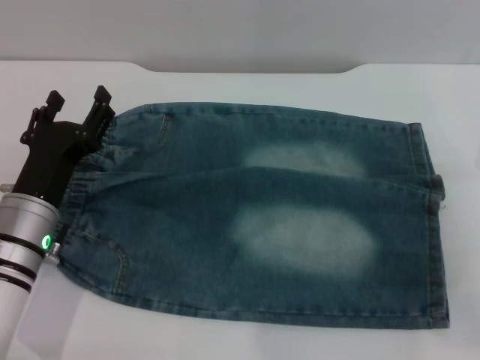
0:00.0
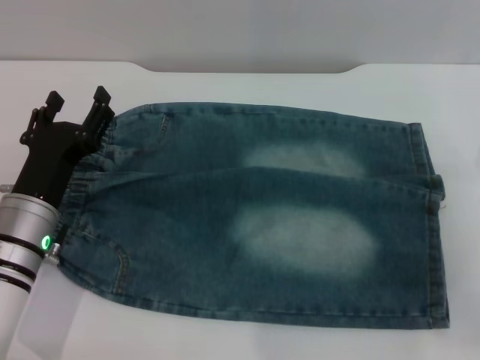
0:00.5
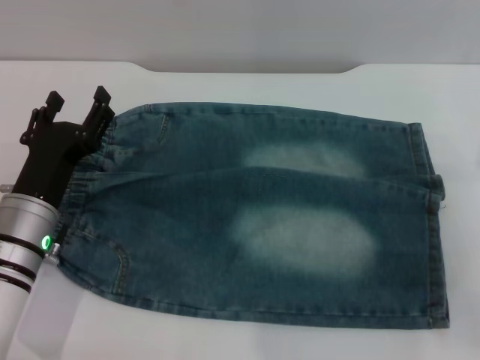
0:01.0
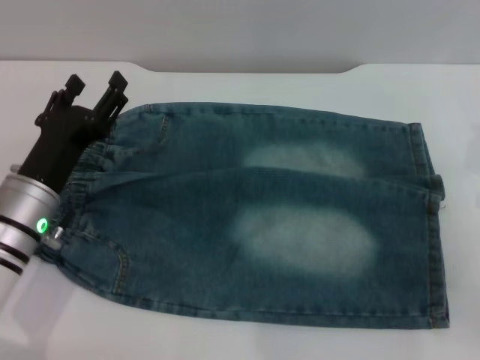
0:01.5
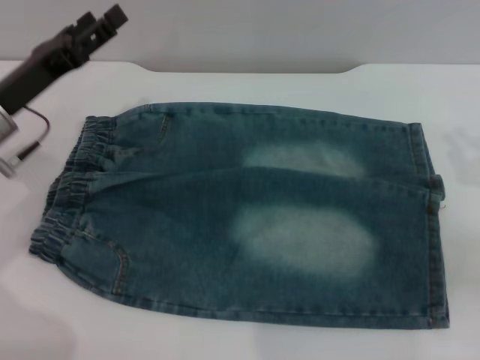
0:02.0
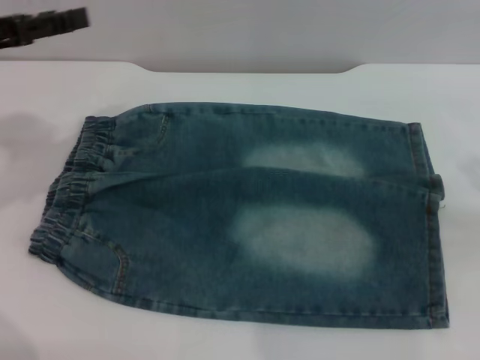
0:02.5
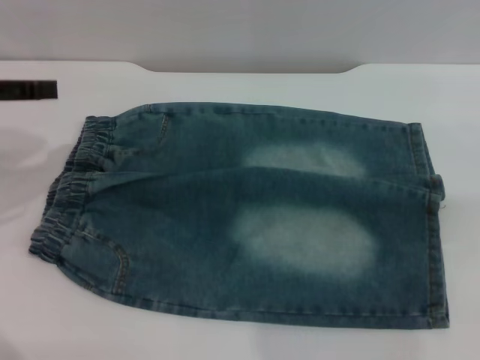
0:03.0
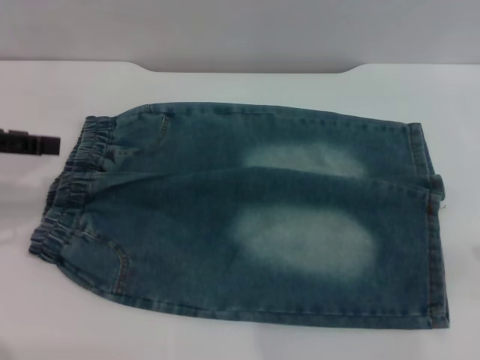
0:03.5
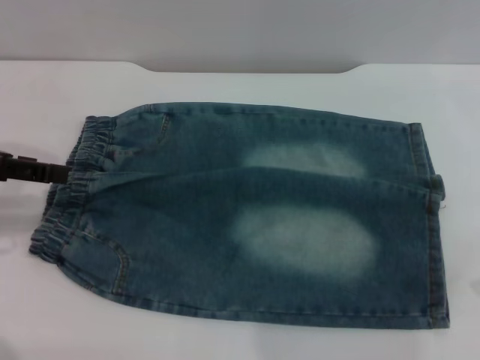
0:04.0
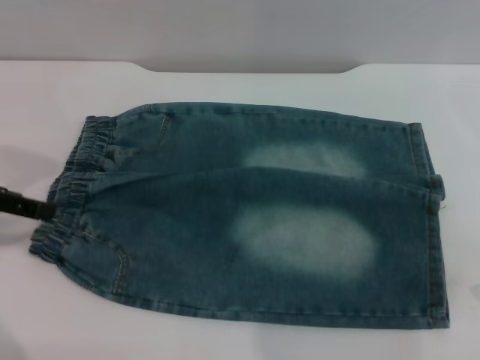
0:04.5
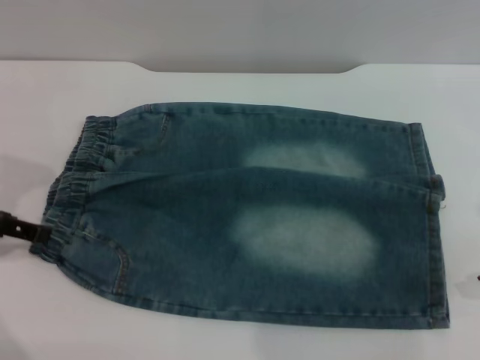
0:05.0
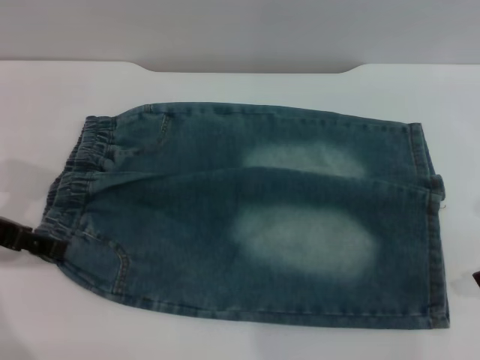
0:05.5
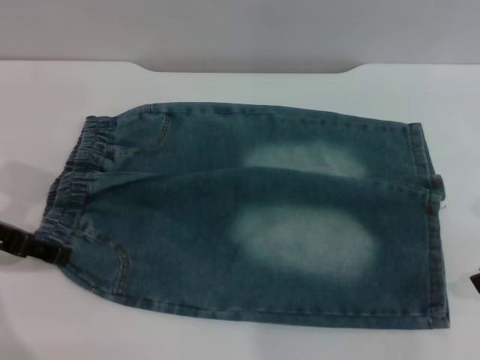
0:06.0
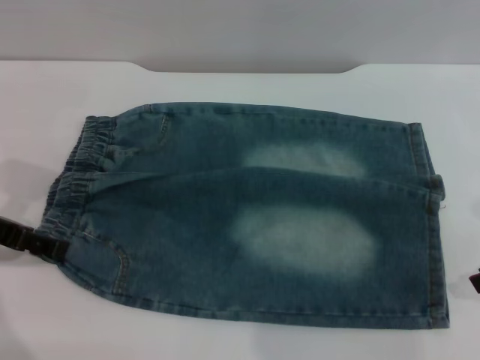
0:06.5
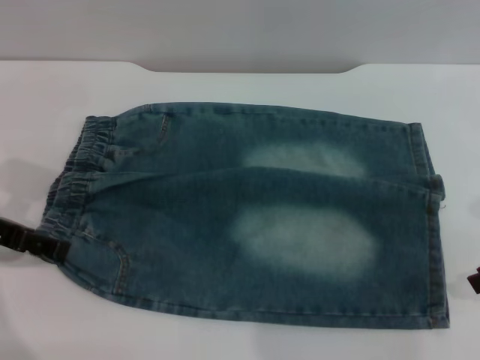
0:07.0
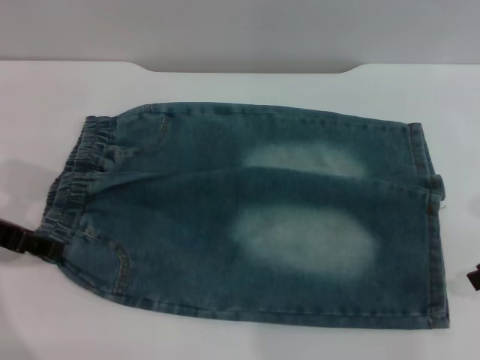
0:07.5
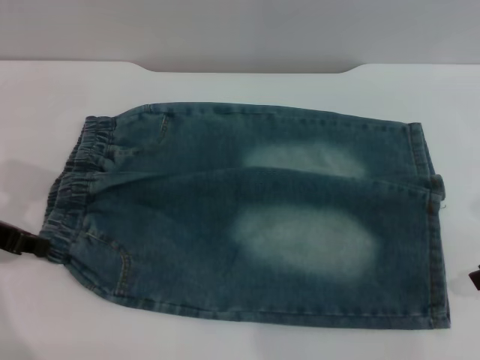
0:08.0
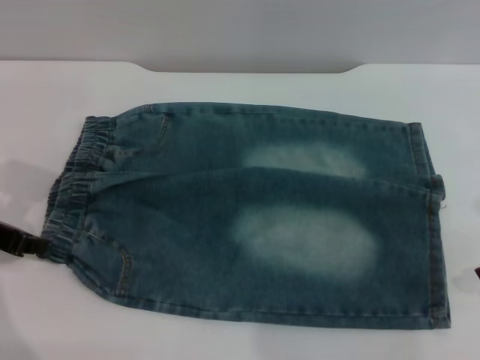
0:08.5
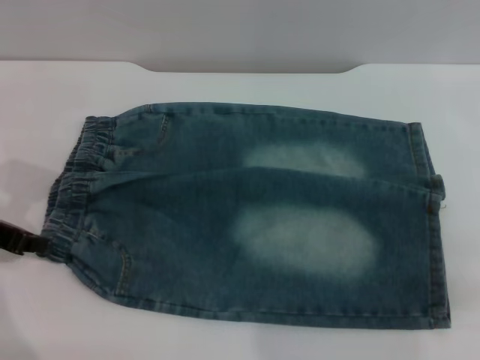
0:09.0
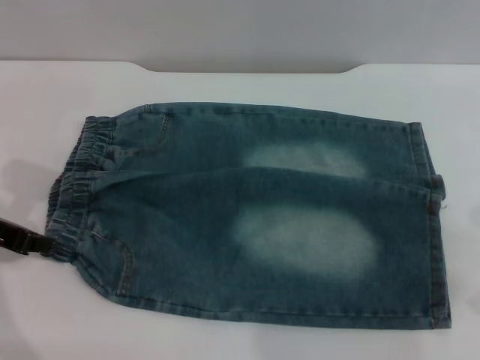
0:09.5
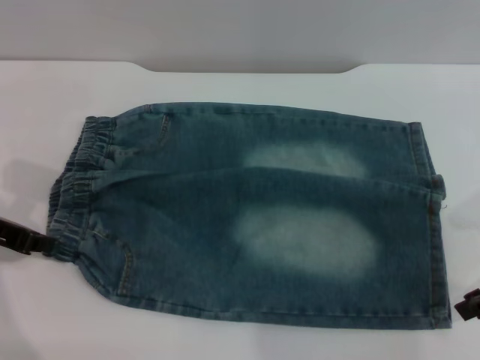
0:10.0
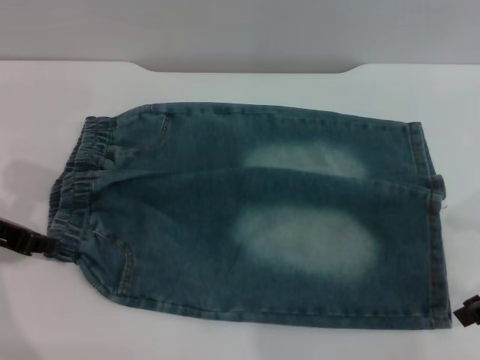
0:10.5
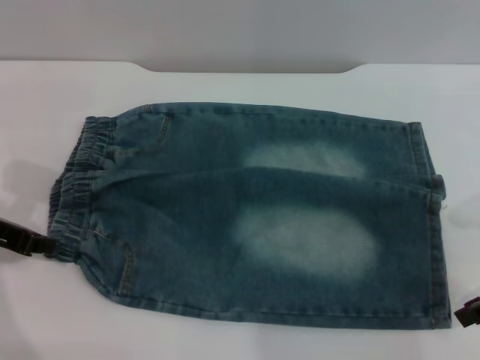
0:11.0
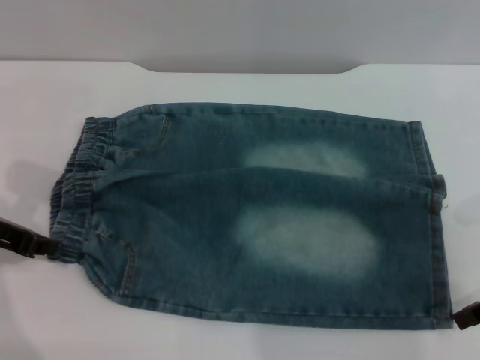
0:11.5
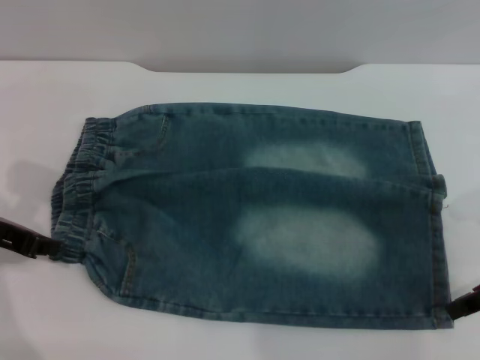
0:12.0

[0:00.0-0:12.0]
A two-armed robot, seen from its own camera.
0:00.0 to 0:02.0: The left gripper shifts roughly 10 cm forward and upward.
0:02.0 to 0:04.0: The left gripper travels upward and to the left by about 15 cm.
0:04.0 to 0:06.0: The left gripper travels downward by about 5 cm.
0:06.0 to 0:08.0: The left gripper closes its fingers.
0:08.0 to 0:10.0: The left gripper closes its fingers.
0:10.0 to 0:12.0: The grippers make only small movements.

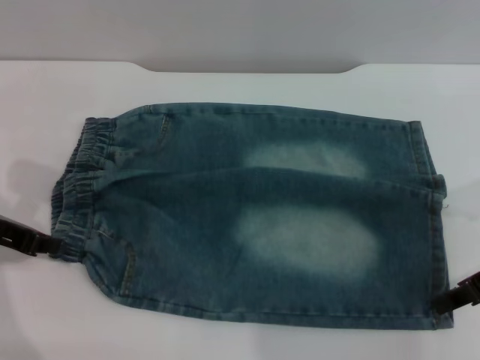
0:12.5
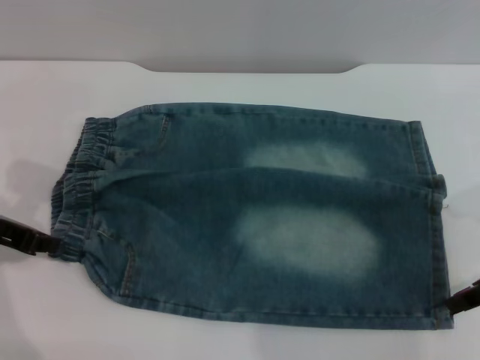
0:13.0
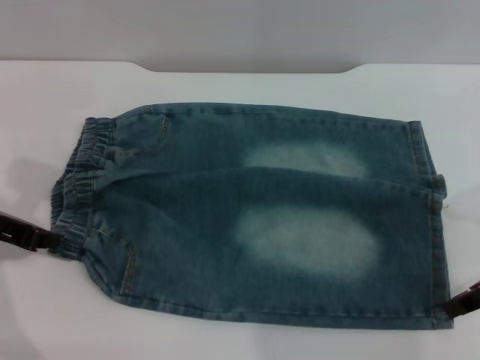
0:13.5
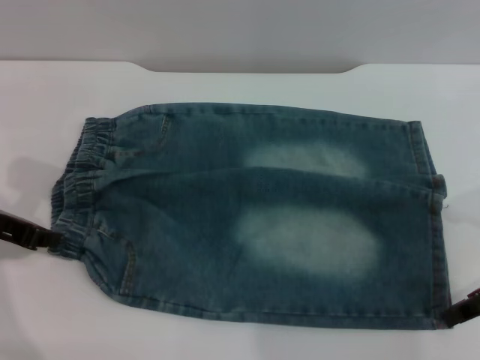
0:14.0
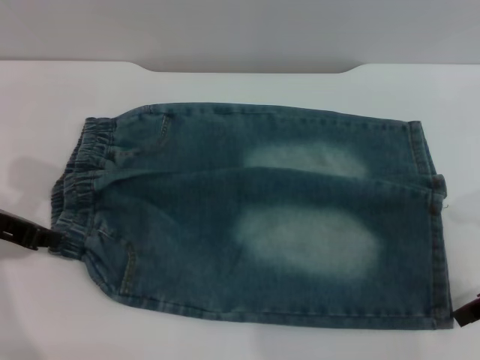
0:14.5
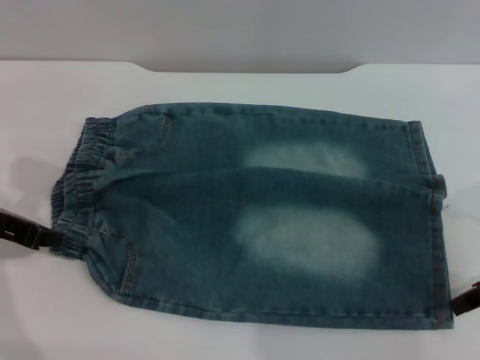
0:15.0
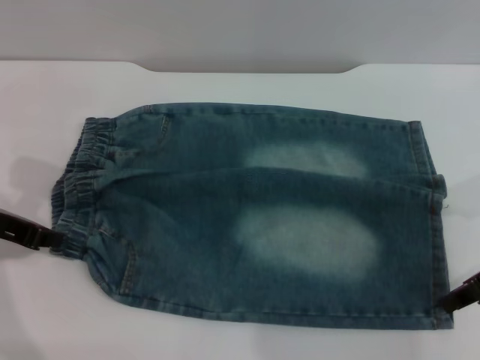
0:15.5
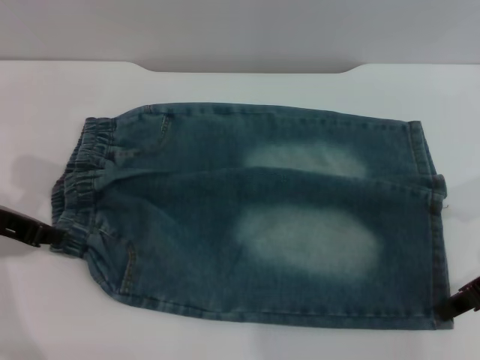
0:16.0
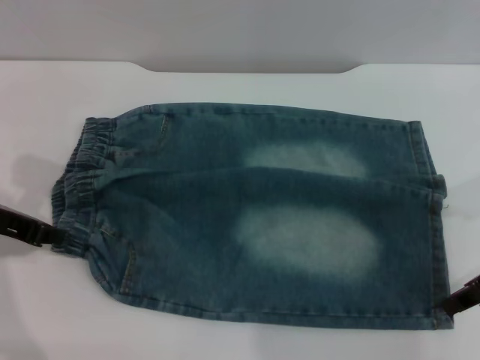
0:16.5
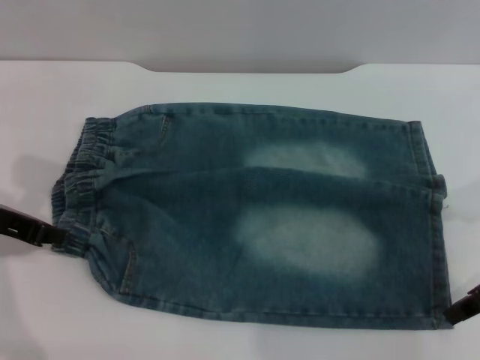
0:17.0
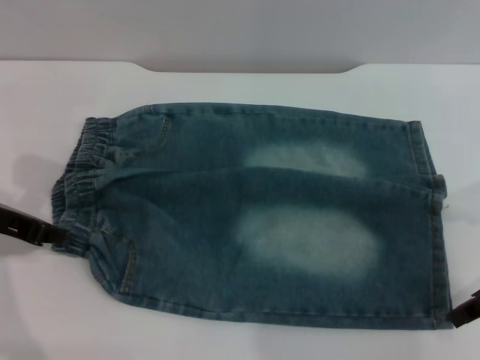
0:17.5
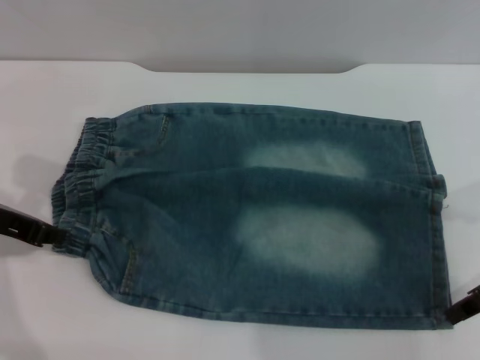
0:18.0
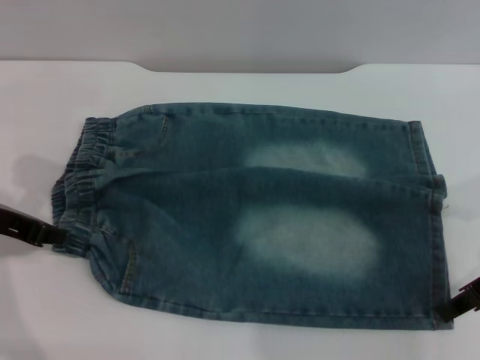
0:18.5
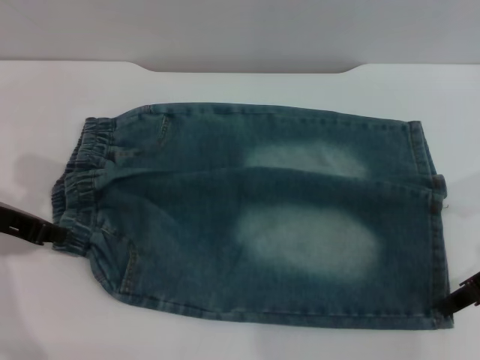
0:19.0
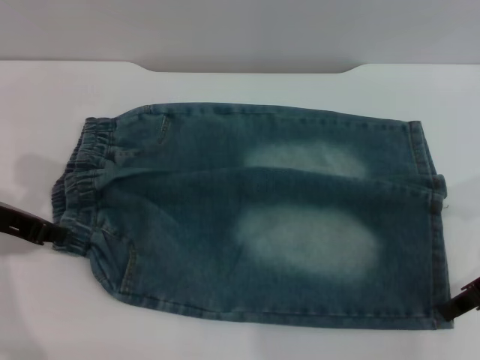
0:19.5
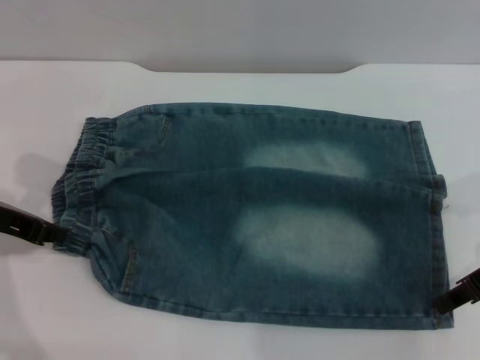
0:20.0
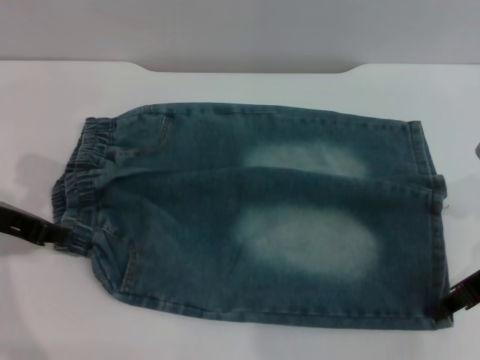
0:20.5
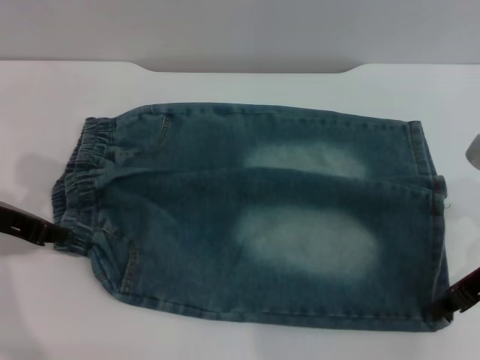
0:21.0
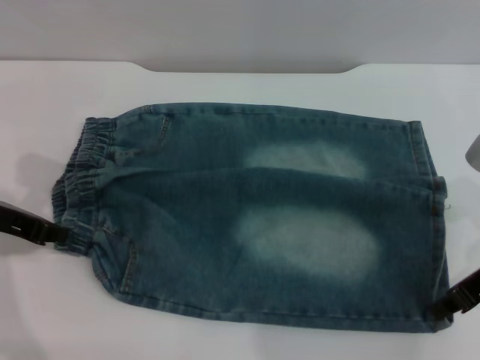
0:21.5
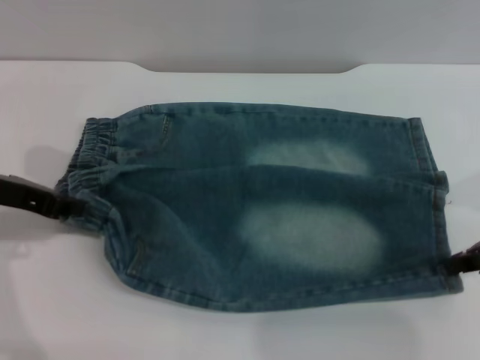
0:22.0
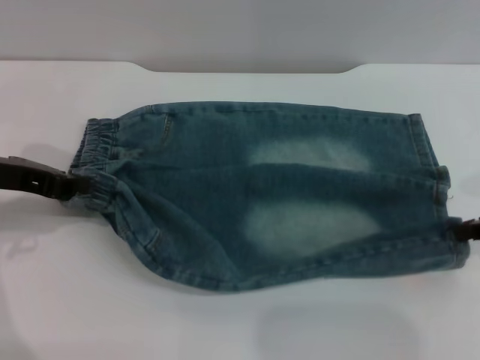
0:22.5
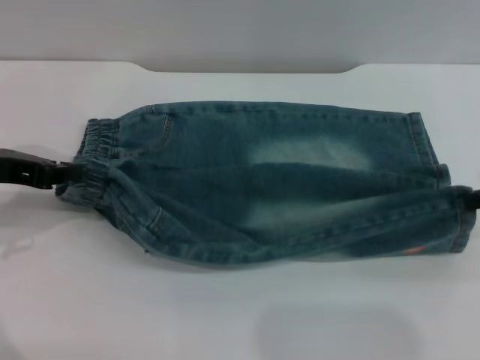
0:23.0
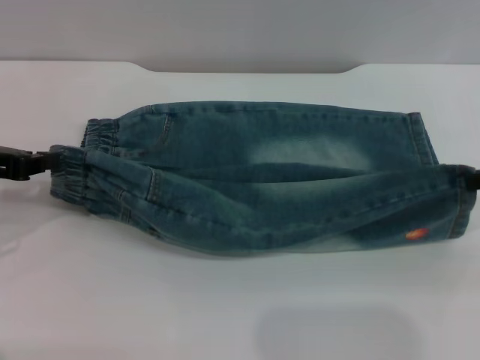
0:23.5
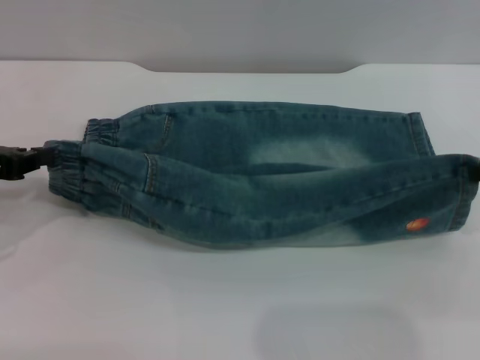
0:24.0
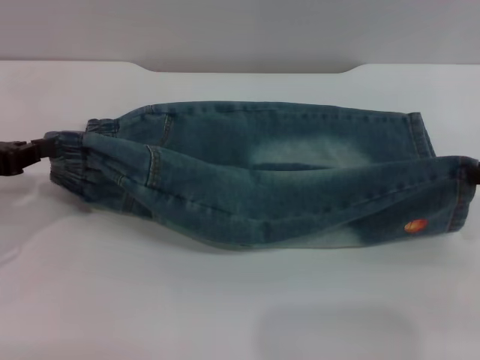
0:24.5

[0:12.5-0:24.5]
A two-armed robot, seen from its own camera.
0:12.5 to 0:16.5: The grippers make only small movements.
0:16.5 to 0:18.5: Both grippers stay about where they are.
0:18.5 to 0:20.5: Both grippers stay about where they are.
0:20.5 to 0:22.5: The right gripper shifts by about 5 cm.
0:22.5 to 0:24.5: The left gripper shifts by about 5 cm.

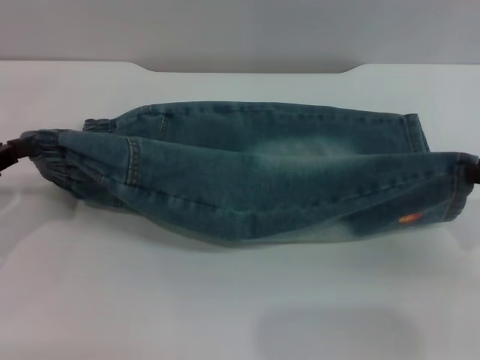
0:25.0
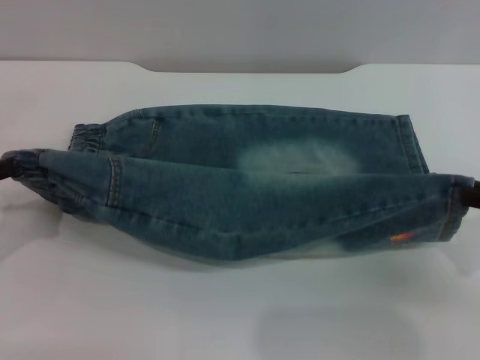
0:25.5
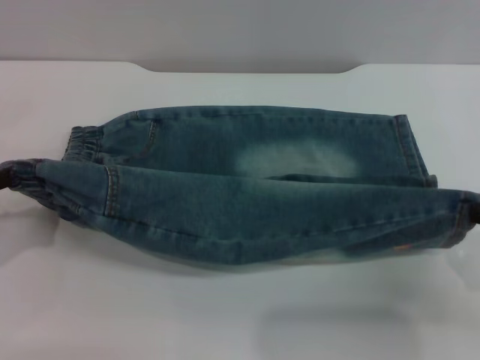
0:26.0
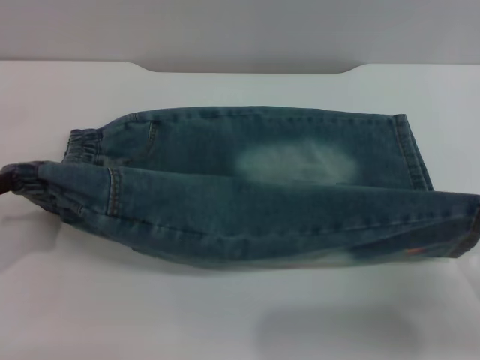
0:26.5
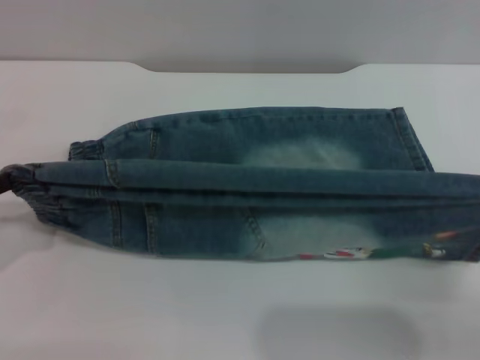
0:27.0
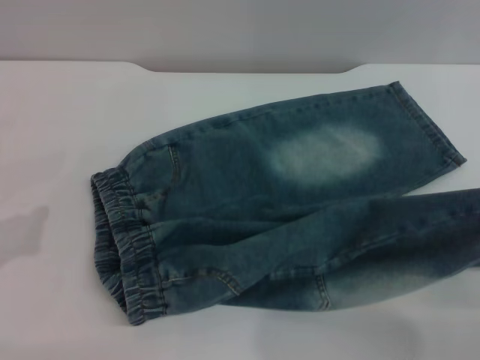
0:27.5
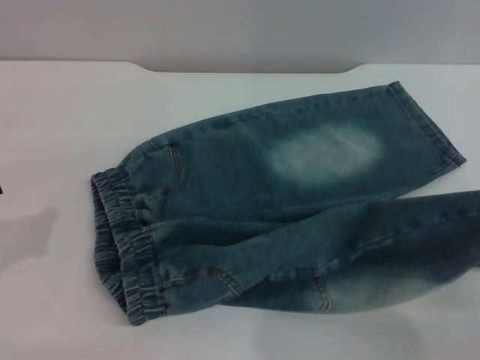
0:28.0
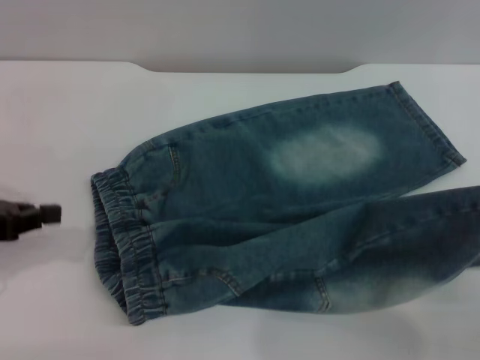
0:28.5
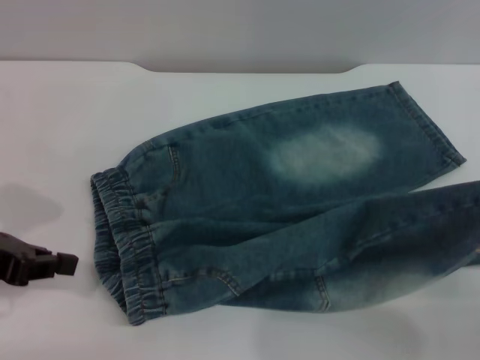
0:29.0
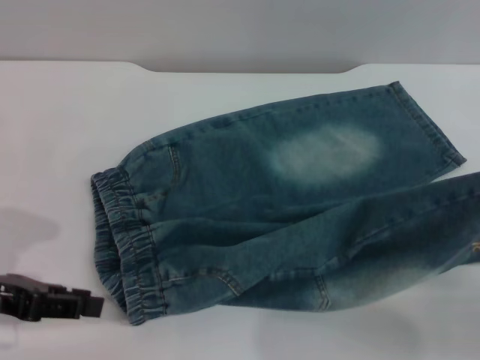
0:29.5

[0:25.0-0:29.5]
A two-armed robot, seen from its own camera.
0:25.0 to 0:27.0: The right gripper goes about 10 cm backward; the left gripper changes place by roughly 5 cm.
0:27.0 to 0:29.5: The left gripper travels to the right by about 5 cm.
